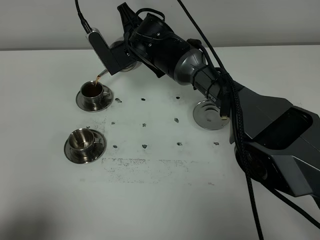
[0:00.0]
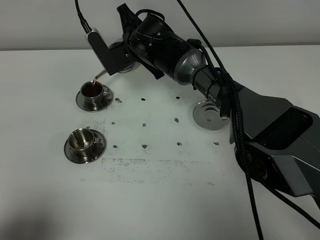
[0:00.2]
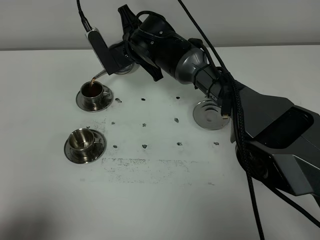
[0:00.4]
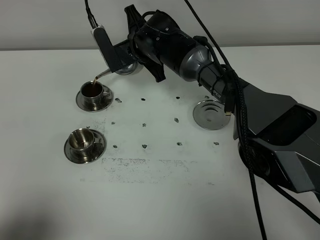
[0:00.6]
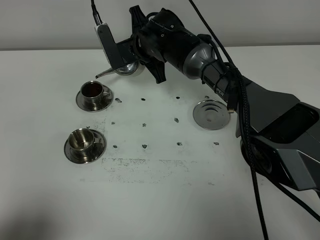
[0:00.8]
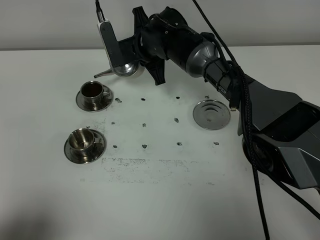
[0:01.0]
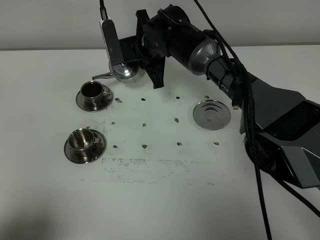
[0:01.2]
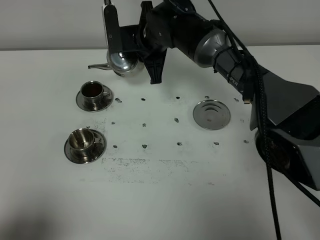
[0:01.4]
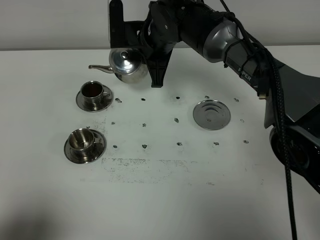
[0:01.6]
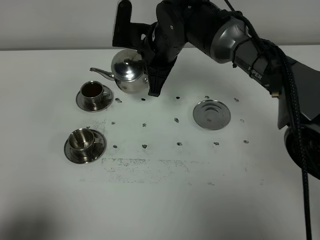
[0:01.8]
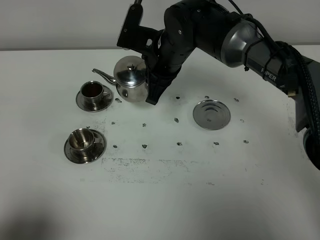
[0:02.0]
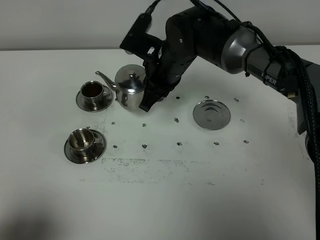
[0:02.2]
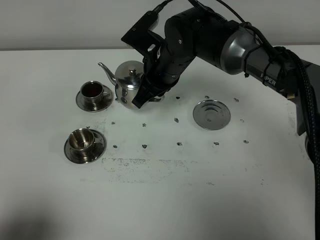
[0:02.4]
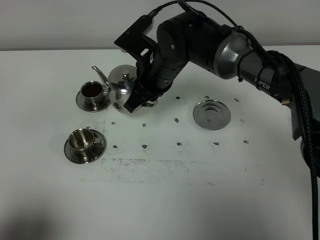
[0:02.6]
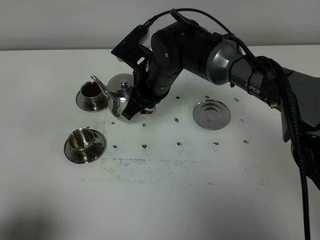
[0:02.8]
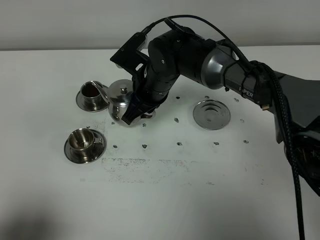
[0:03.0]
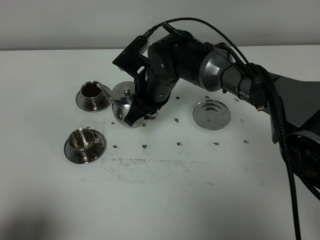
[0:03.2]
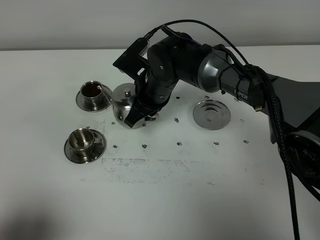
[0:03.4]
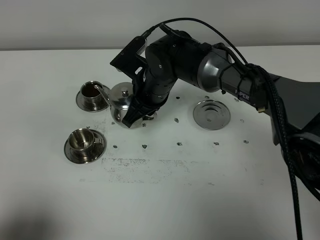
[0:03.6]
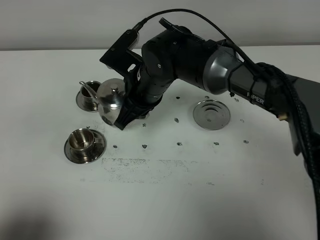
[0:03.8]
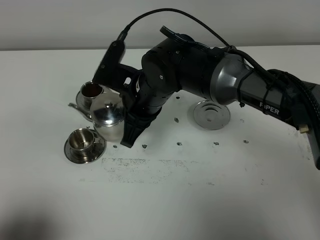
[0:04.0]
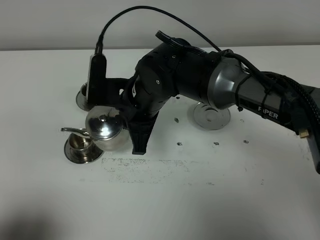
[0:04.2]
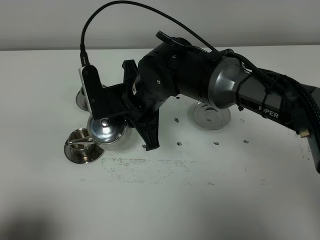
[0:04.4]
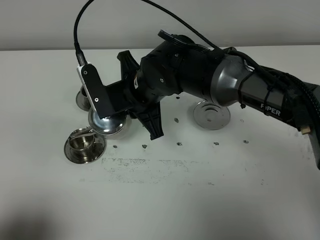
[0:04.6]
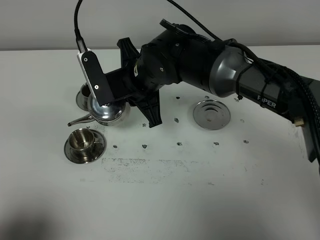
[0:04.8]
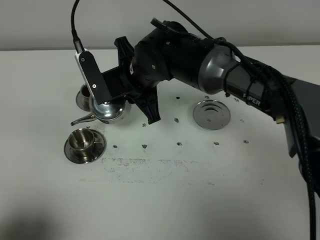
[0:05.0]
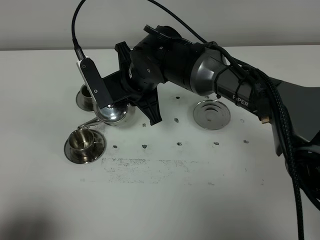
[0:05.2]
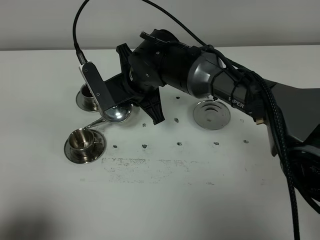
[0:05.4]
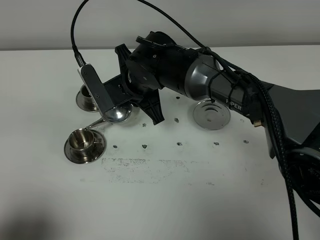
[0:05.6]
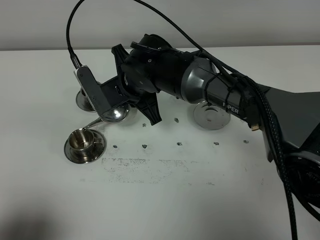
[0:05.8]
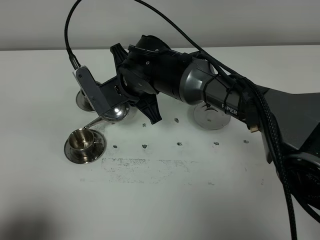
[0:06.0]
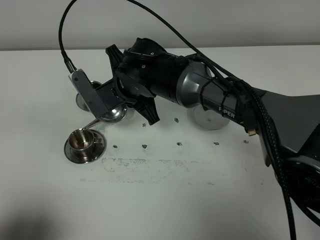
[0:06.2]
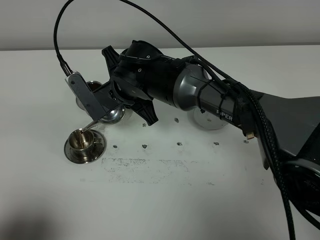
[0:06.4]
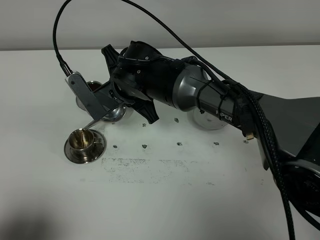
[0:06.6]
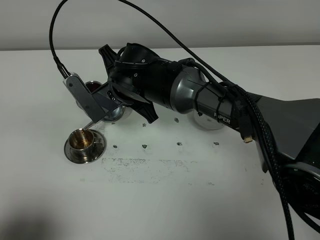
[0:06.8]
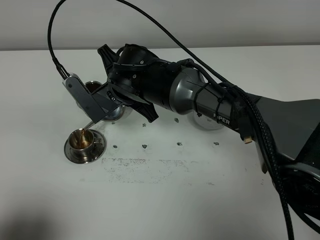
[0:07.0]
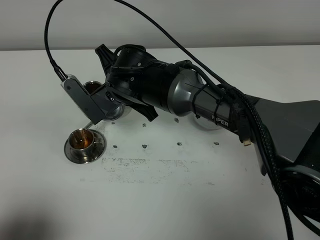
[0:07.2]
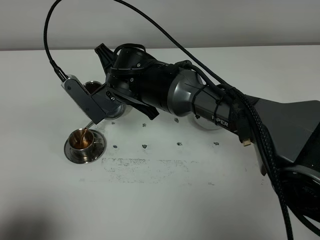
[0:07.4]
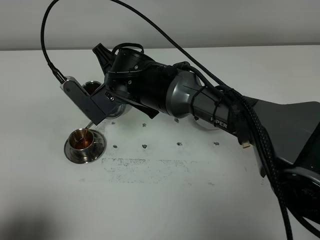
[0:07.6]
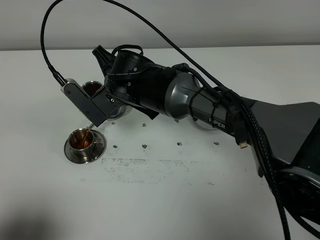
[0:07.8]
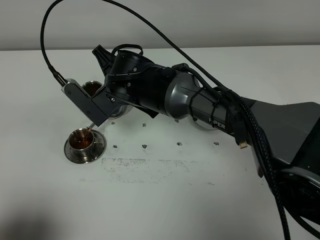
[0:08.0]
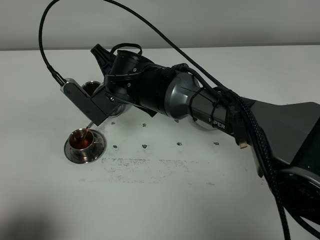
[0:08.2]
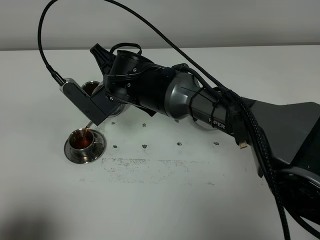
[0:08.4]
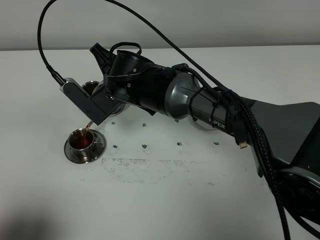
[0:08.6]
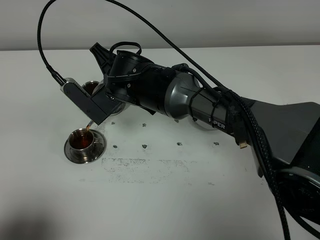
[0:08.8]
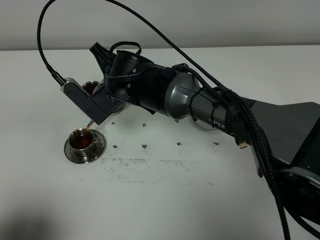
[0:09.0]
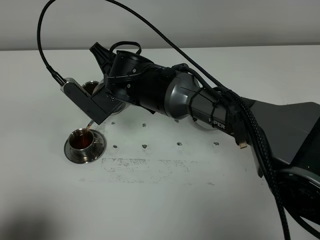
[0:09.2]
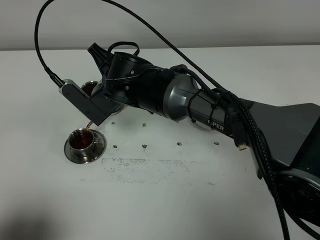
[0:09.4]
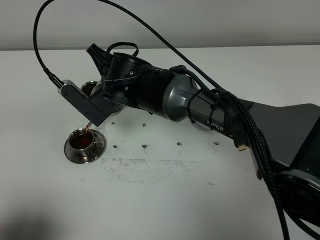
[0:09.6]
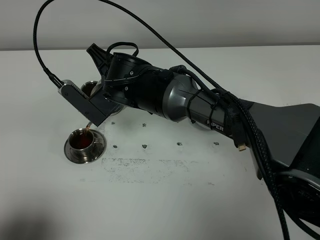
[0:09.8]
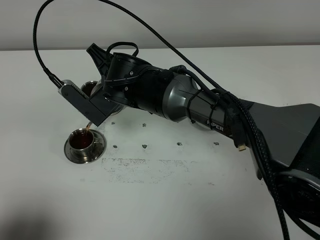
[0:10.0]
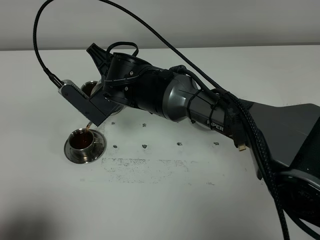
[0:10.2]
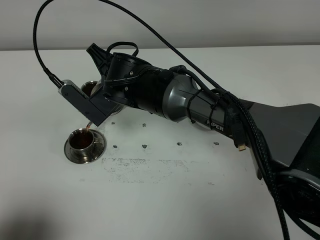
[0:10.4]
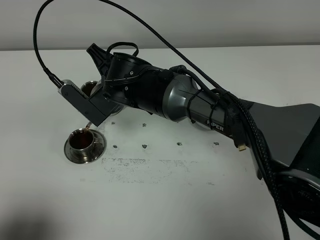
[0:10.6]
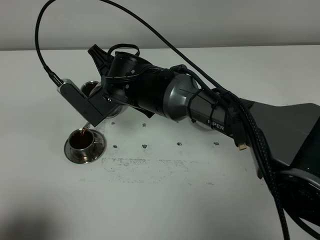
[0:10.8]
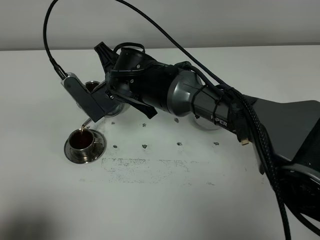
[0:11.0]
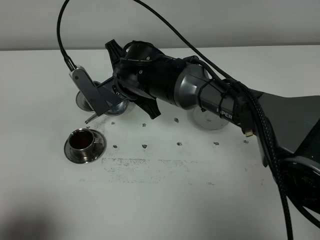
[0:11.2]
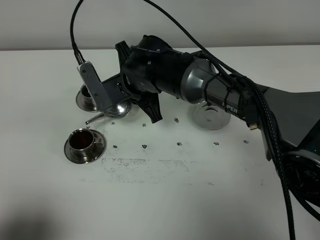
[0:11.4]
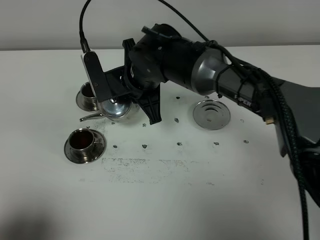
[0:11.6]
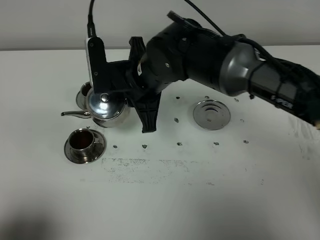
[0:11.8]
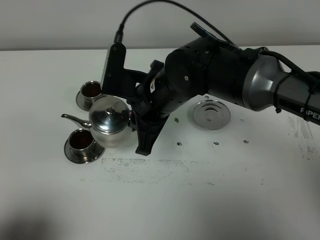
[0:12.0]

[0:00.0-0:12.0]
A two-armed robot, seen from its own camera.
Task of the whole recording: grasp the stainless steel teapot and pour the tea into the two stainless steel teacups one by one, put the stainless steel teapot back in its original place.
Step, 0:00.0 to 0:11.0: Pour tea into the teacup with the right gripper.
0:00.0 to 0:01.6: The right gripper changes place by about 5 cm.
0:01.6 to 0:03.0: The right gripper is displaced backward and downward by about 5 cm.
0:03.0 to 0:04.4: The right gripper moves backward, some 5 cm.
0:04.4 to 0:06.0: The right gripper shifts by approximately 5 cm.
0:06.0 to 0:07.6: There are only small adjustments of the grippers.
0:07.6 to 0:09.0: Both grippers stay about where they are.
0:09.0 to 0:10.4: The two grippers keep their place.
0:10.4 to 0:12.0: The right gripper heads to the right and backward, covering about 10 cm.

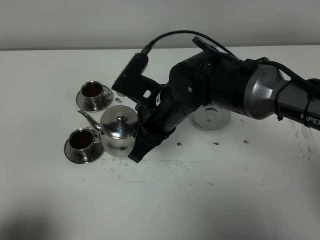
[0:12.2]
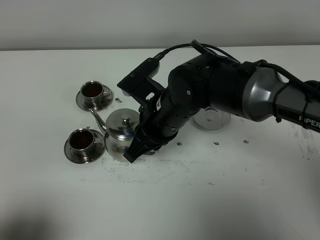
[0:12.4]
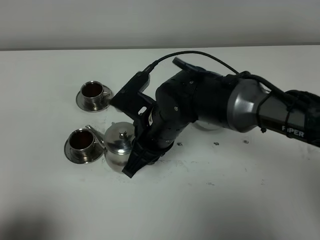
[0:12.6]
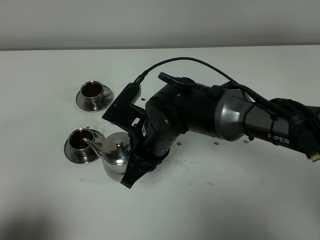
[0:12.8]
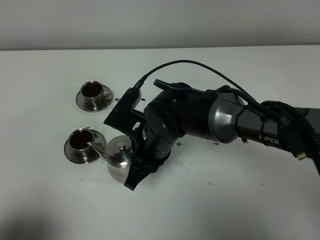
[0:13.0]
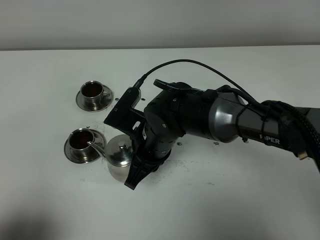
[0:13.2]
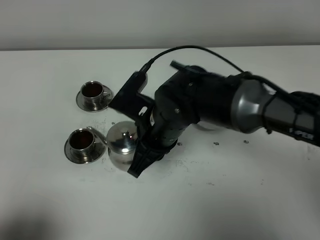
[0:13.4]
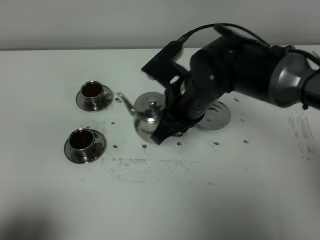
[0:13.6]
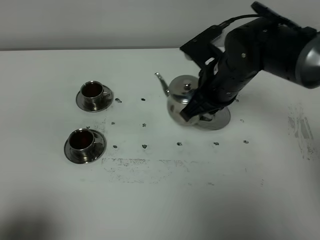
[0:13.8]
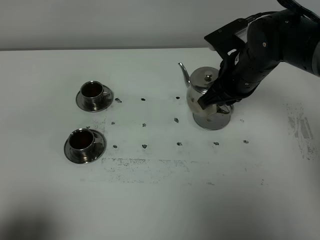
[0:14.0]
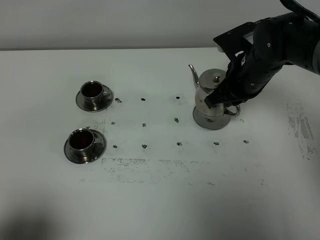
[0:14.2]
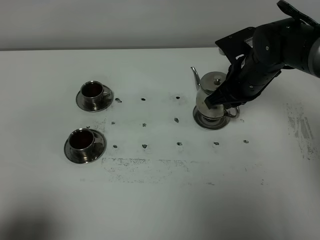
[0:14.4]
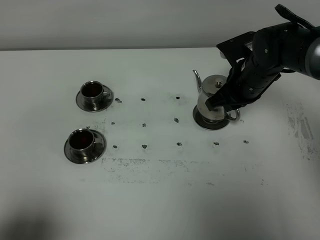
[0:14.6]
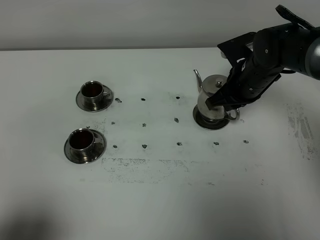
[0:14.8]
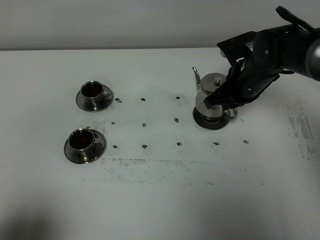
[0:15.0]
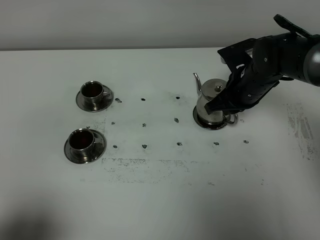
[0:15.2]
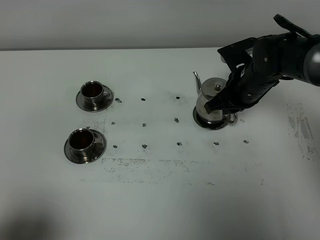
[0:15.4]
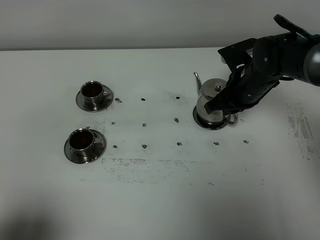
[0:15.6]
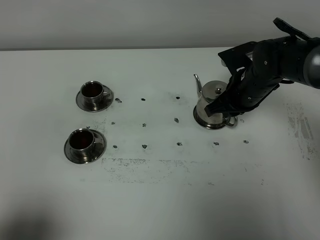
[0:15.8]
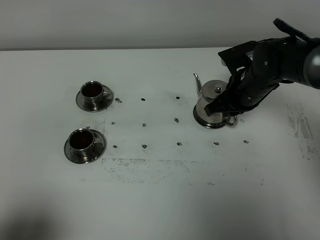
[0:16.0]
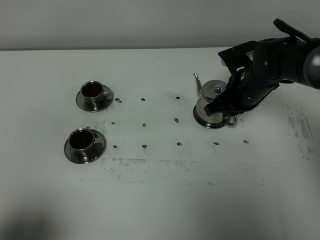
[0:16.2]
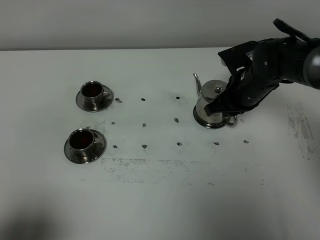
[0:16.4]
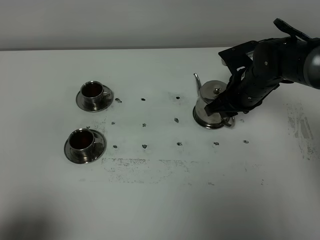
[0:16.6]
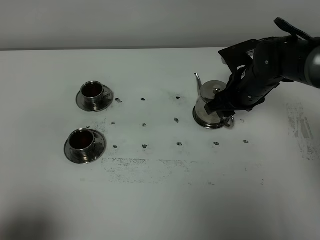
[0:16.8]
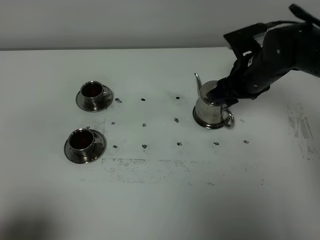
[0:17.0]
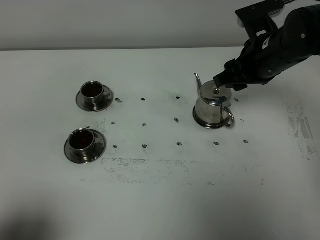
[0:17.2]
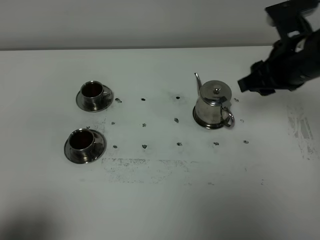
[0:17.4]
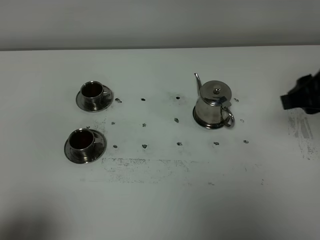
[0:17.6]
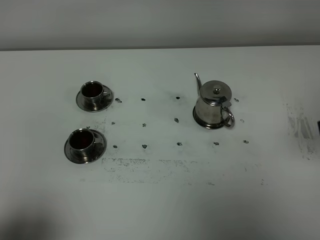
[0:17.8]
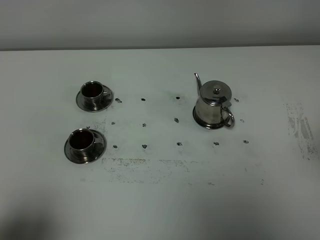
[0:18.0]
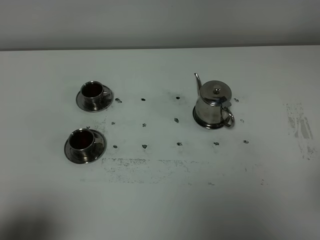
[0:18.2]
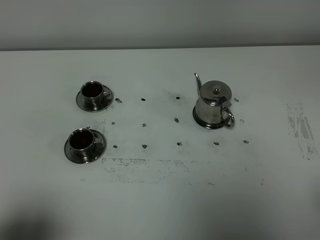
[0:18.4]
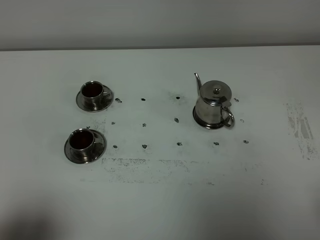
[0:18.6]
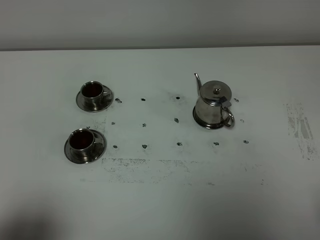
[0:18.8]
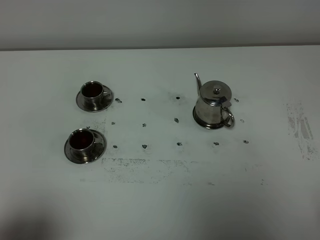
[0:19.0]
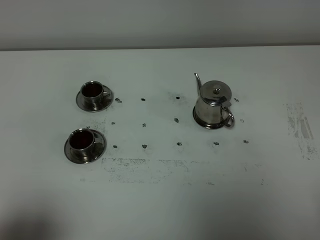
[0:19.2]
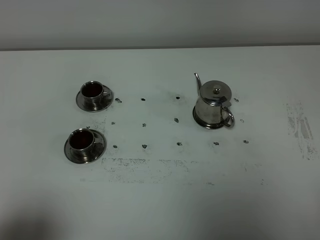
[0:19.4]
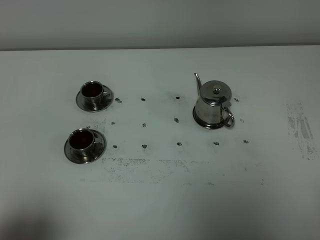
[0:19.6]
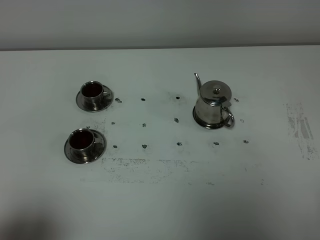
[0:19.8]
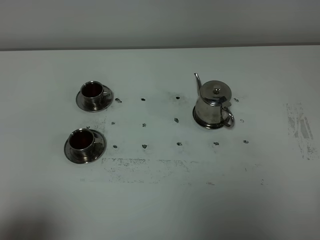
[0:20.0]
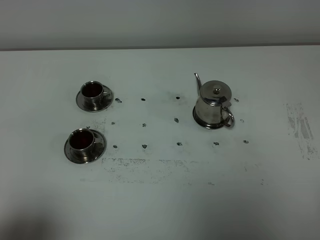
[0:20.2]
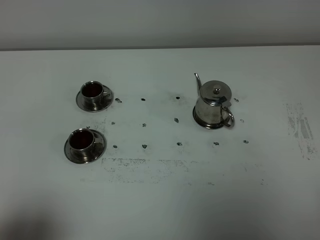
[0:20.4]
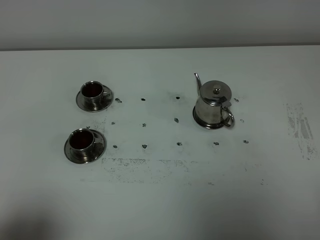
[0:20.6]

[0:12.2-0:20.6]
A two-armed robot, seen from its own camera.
Task of the whole recording: grasp the stainless steel teapot and pour the tea into the two stainless steel teacups one by one, put the stainless steel teapot back in its original place.
0:12.2 to 0:13.6: The right gripper shifts by roughly 5 cm.
0:13.6 to 0:15.0: The right gripper shifts approximately 15 cm to the right, forward and downward.
0:15.0 to 0:16.4: The grippers stay close to where they were, moving slightly.
0:16.4 to 0:17.8: The right gripper travels backward, upward and to the right by roughly 30 cm, and opens.
0:19.2 to 0:20.6: Neither gripper changes place.

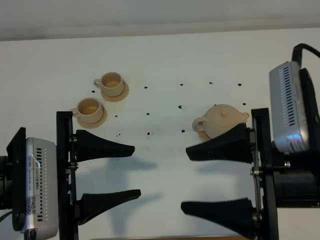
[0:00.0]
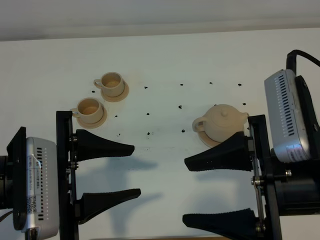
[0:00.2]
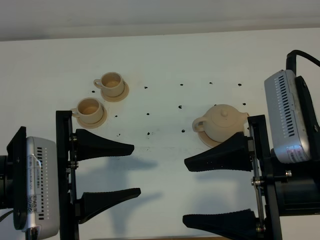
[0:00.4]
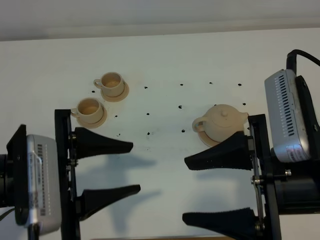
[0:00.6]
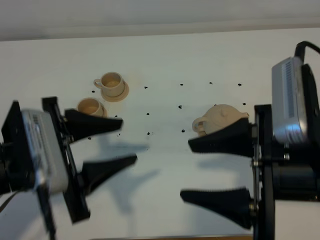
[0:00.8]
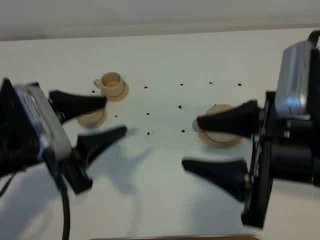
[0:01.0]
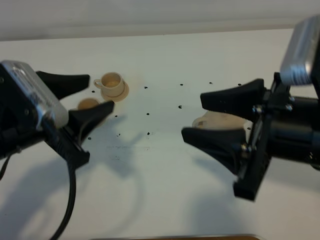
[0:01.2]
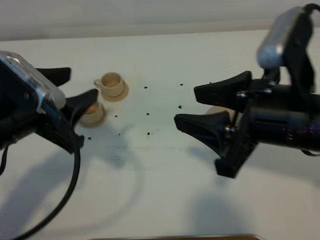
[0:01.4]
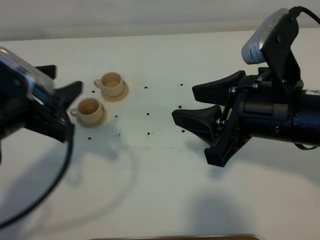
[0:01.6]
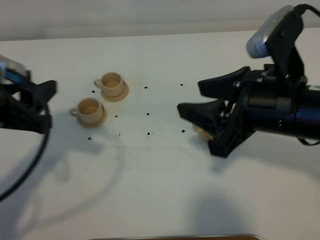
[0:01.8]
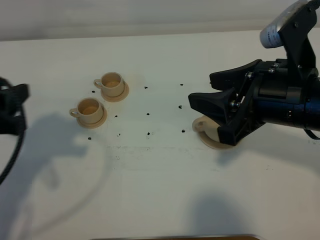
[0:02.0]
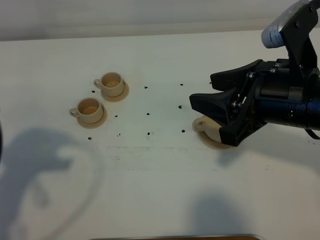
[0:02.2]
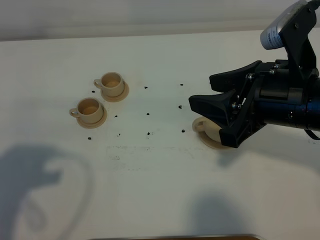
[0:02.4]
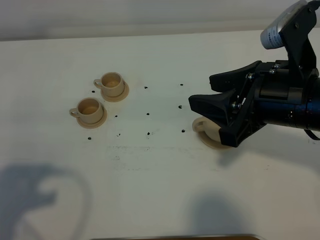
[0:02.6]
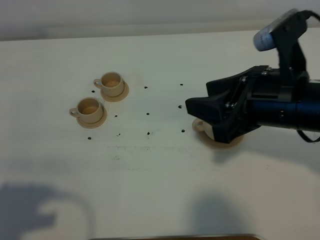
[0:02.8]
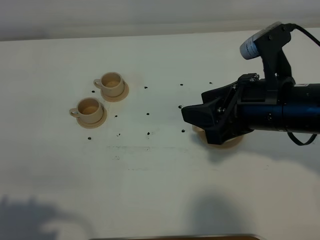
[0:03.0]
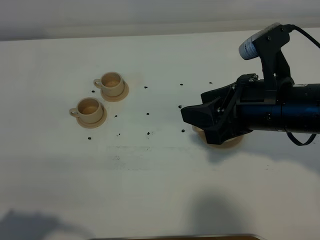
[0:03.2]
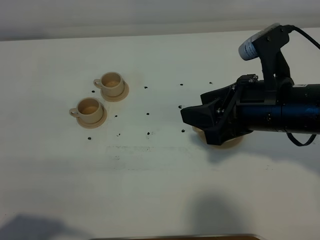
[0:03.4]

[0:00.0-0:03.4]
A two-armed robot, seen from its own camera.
Task of the whole recording: grasp the brown teapot and pour the tea into the two brown teacups one by one, put the brown teapot back in its original place.
0:00.0 to 0:01.6: The left gripper travels forward and to the left by roughly 10 cm, while the right gripper travels forward by approximately 5 cm.
0:01.6 to 0:03.4: The left gripper moves backward, roughly 20 cm.
